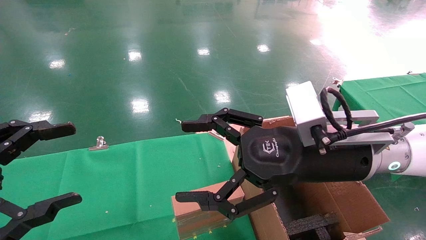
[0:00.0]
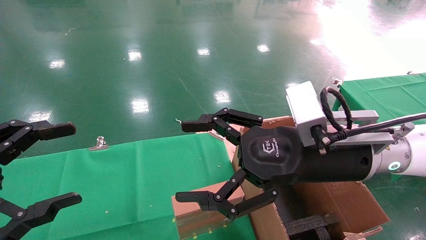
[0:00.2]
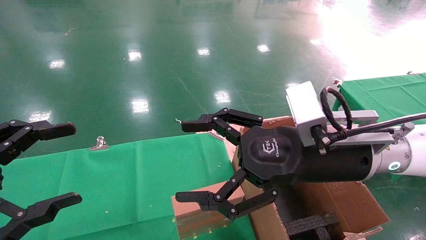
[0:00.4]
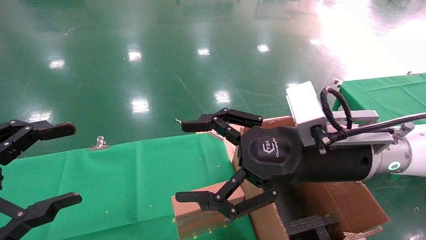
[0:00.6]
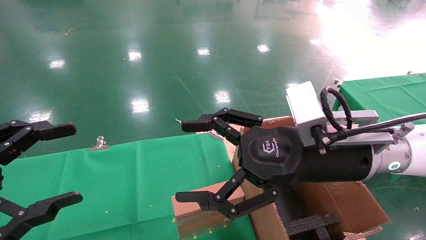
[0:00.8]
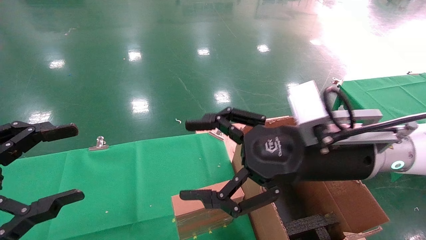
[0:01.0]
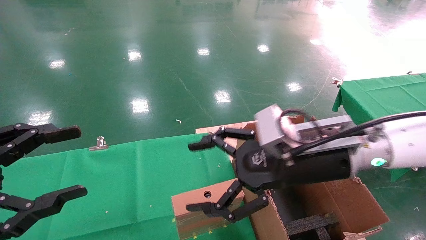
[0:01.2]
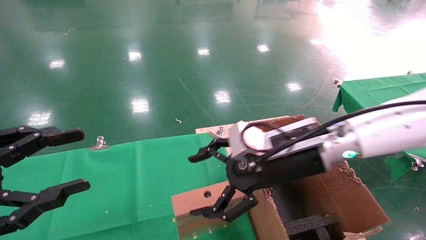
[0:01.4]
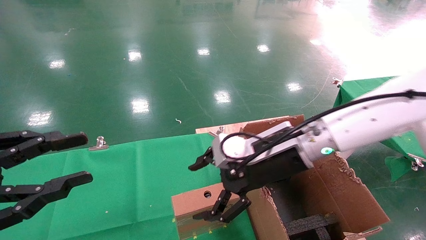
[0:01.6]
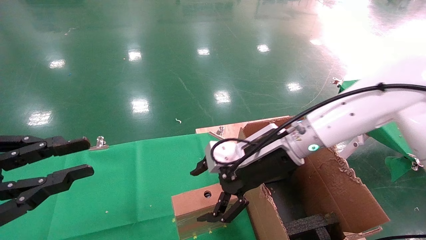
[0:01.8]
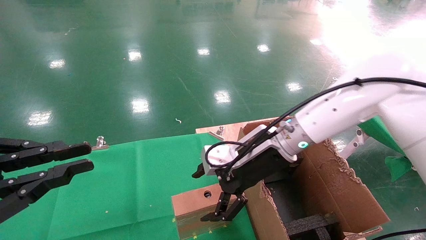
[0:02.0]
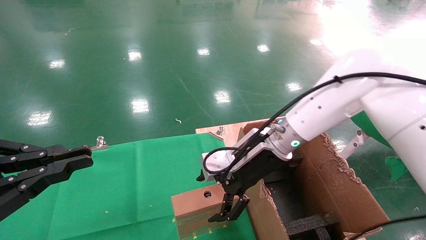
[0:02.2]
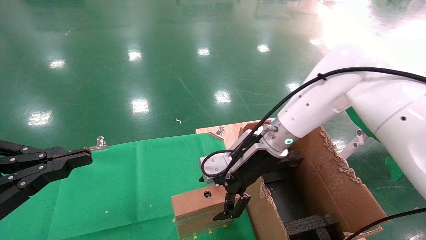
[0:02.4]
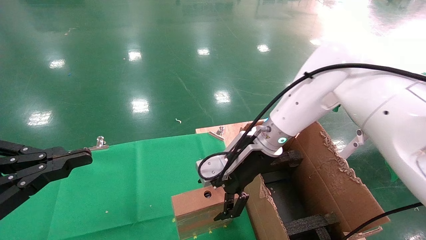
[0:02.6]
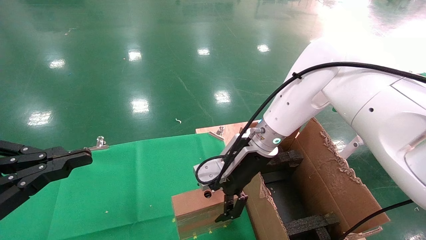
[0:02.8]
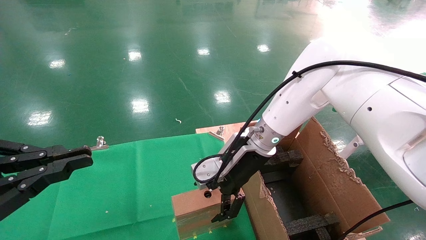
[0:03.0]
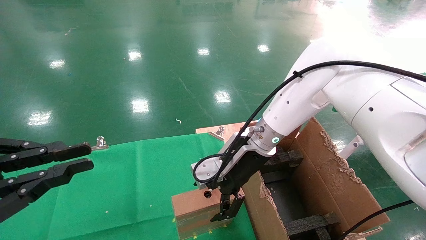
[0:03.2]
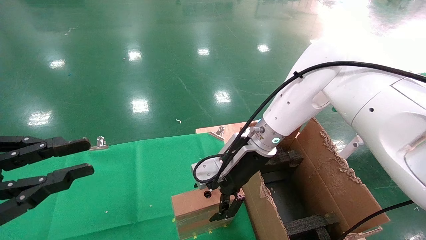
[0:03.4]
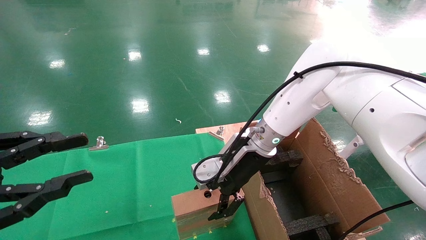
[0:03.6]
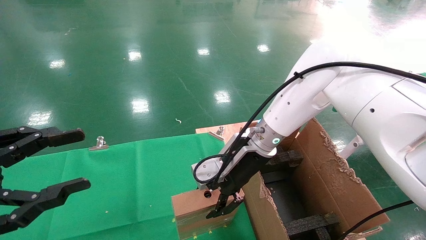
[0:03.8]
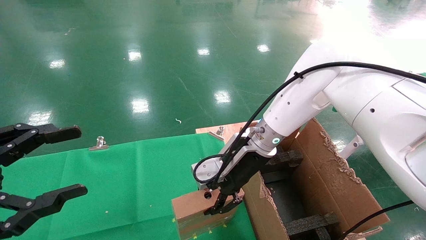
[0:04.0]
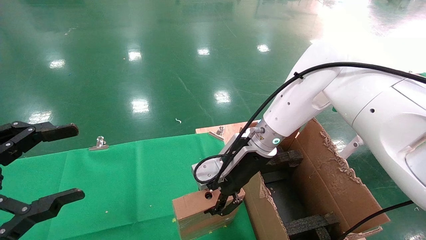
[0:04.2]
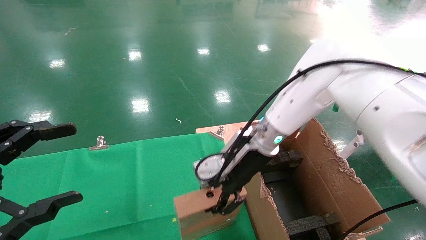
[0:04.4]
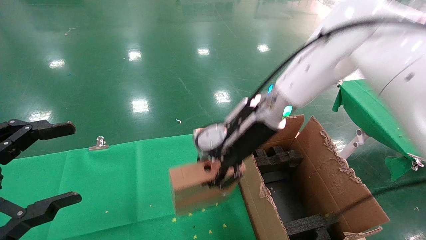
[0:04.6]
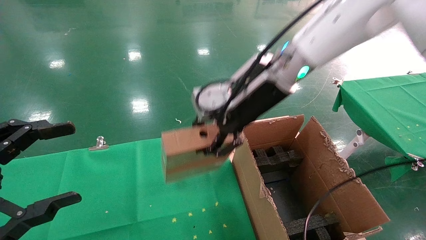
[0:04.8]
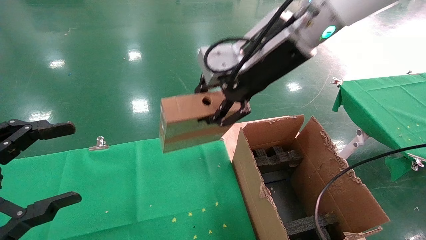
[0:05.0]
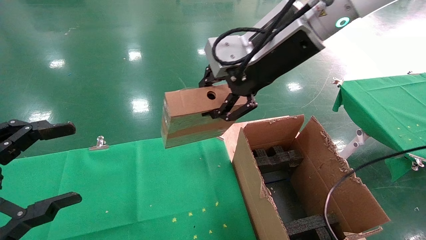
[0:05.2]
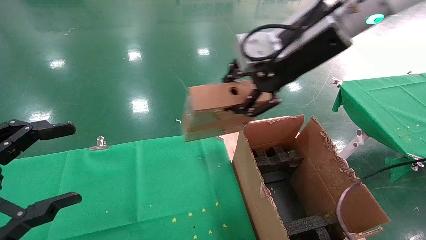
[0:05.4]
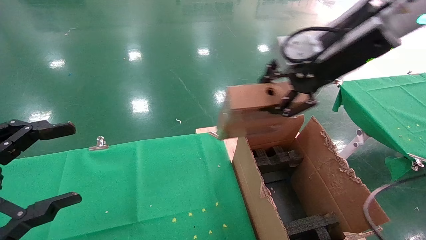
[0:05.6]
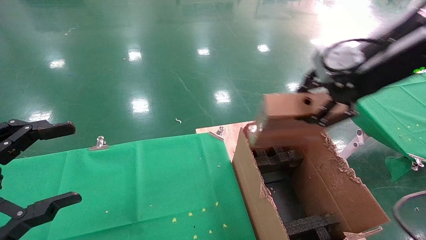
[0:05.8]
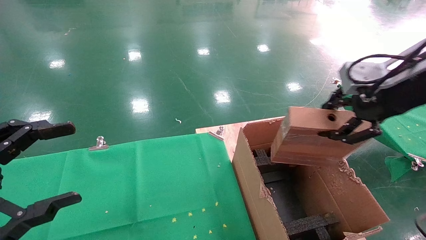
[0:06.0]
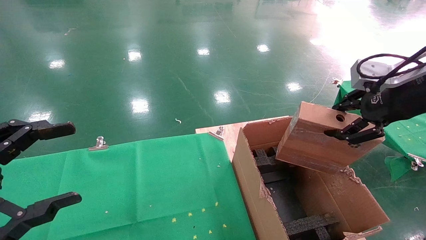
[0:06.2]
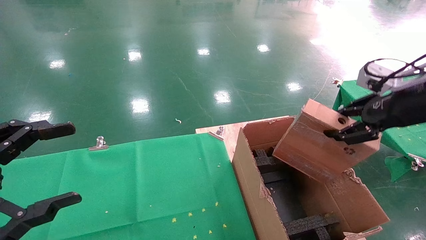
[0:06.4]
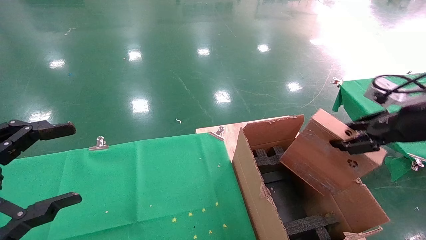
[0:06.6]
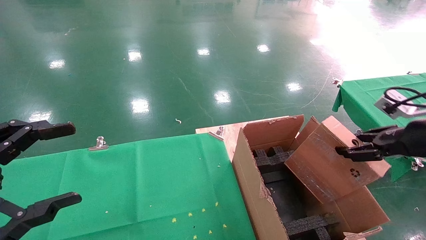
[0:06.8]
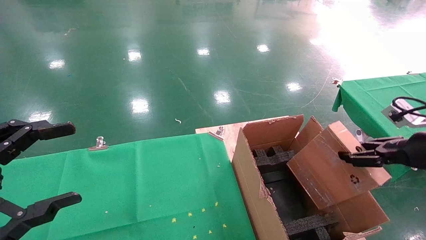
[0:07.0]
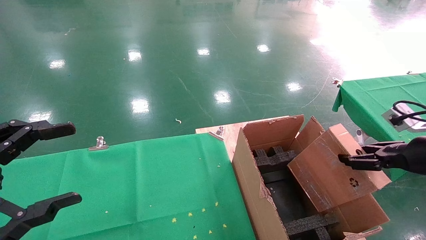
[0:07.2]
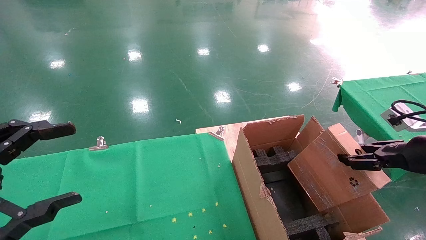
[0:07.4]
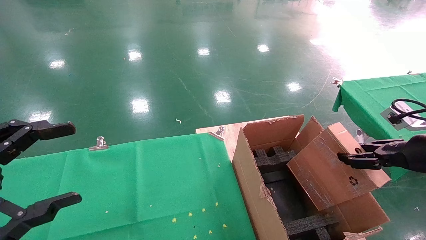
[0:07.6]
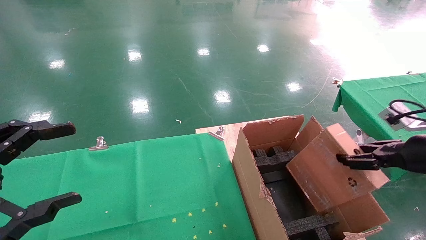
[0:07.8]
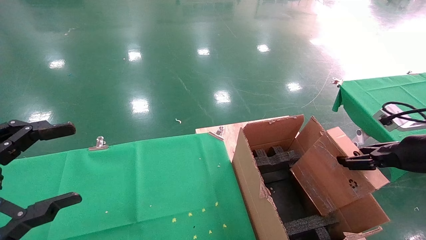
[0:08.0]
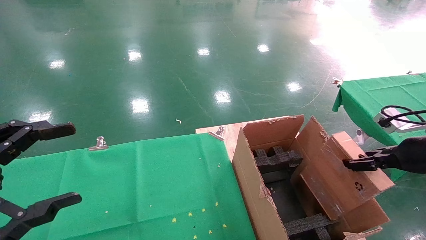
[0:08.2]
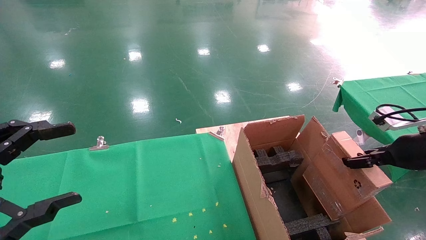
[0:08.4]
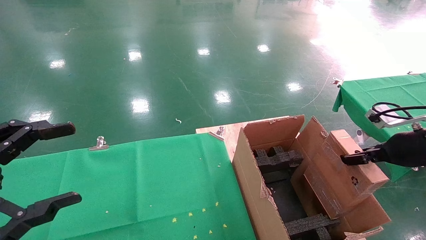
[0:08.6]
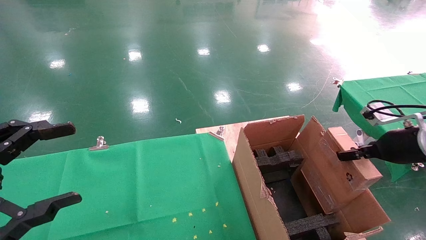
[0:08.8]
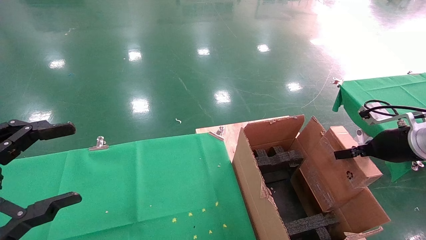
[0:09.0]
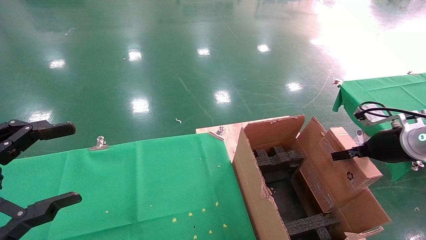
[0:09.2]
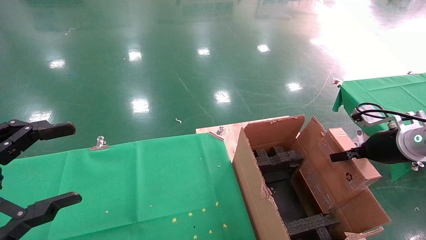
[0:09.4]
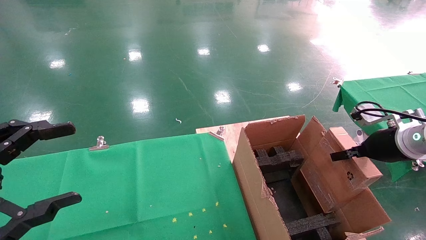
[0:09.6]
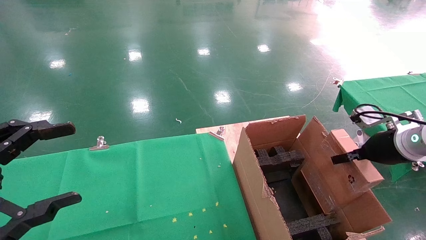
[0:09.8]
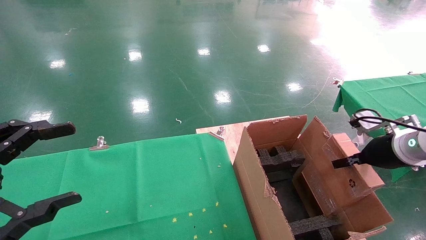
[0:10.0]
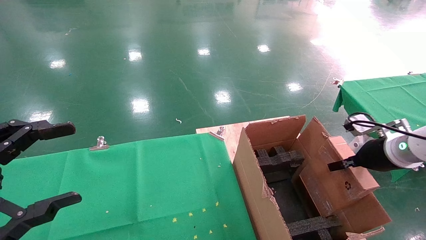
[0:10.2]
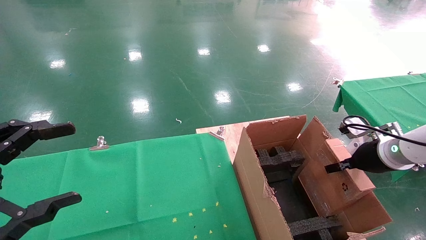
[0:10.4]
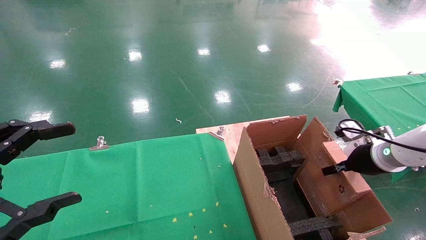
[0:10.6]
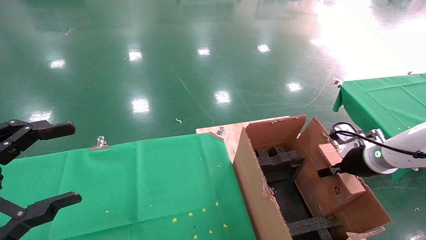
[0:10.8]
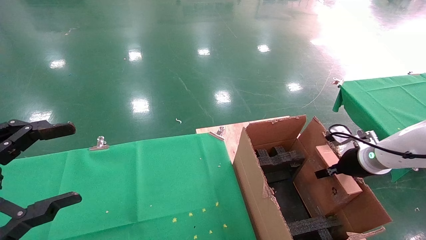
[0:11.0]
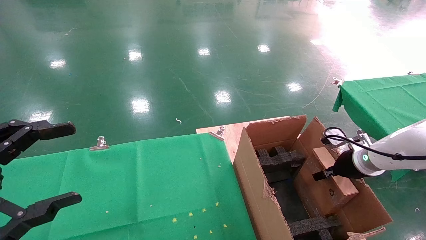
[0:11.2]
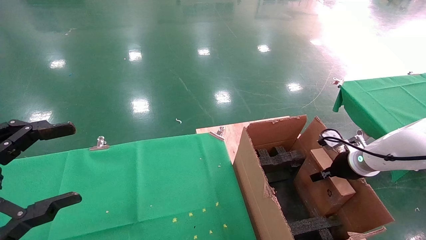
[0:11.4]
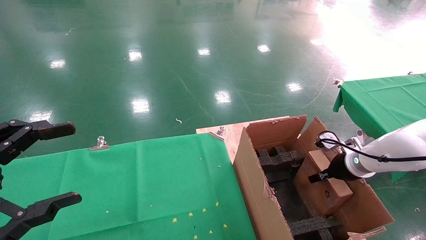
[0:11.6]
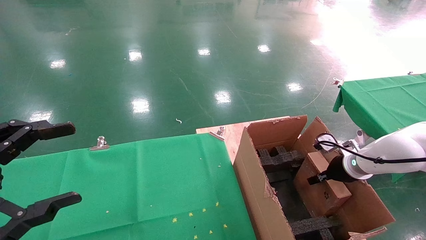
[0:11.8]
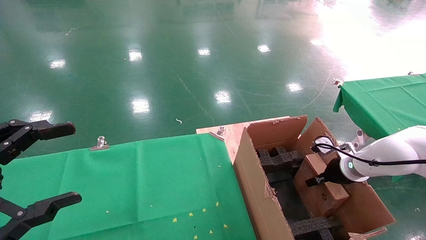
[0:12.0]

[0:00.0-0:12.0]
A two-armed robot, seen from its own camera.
Task of the whole recording: using a robotic arm to pick up a cardboard box and palace it the carton.
Step, 0:01.4 to 0:04.2: Pick up the mouse and the power cord paper box.
0:00.0 to 0:01.6: The right gripper is displaced forward by approximately 10 cm; the left gripper closes.
0:01.6 to 0:03.0: The left gripper closes its fingers; the right gripper heads forward, covering approximately 5 cm.
0:03.0 to 0:04.4: The right gripper closes up. The left gripper opens its fingers.
0:04.4 to 0:06.0: The right gripper shifts some 30 cm to the right, upward and backward.
0:06.0 to 0:07.6: The right gripper is displaced downward and to the right by roughly 20 cm.
0:07.6 to 0:09.0: The right gripper goes some 5 cm forward.
0:09.0 to 0:10.4: The right gripper shifts by approximately 5 cm.
0:10.4 to 0:12.0: The right gripper is displaced downward and forward by about 10 cm.

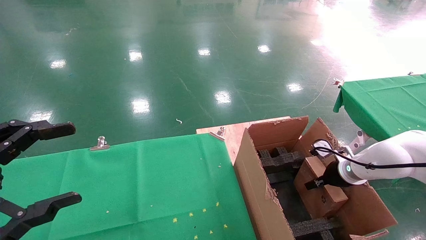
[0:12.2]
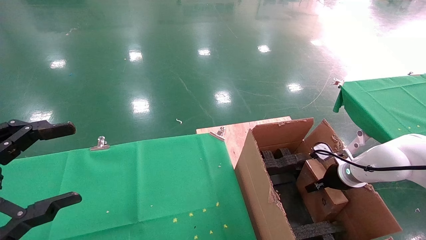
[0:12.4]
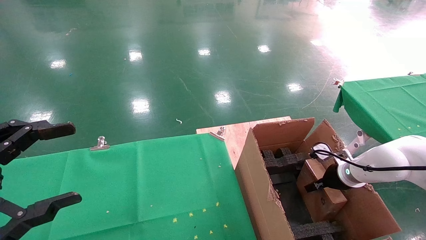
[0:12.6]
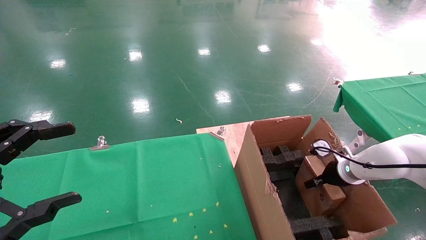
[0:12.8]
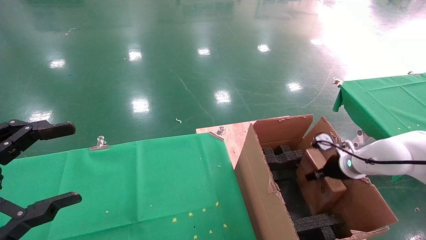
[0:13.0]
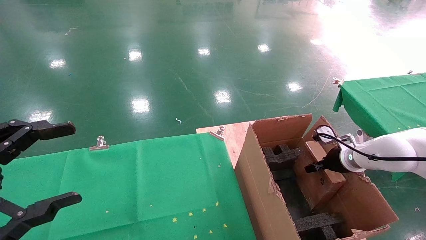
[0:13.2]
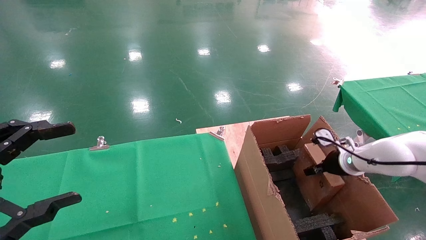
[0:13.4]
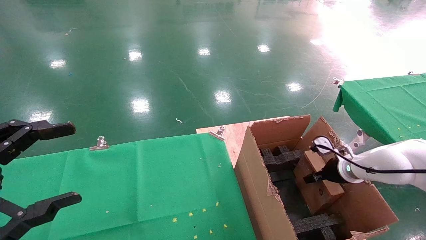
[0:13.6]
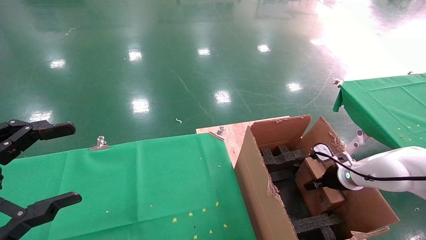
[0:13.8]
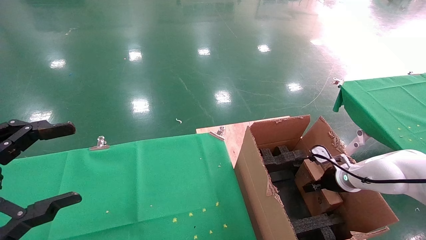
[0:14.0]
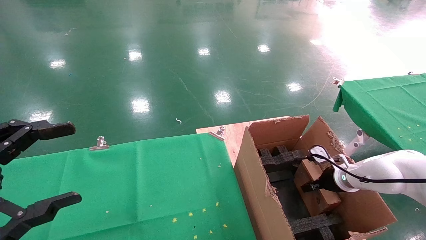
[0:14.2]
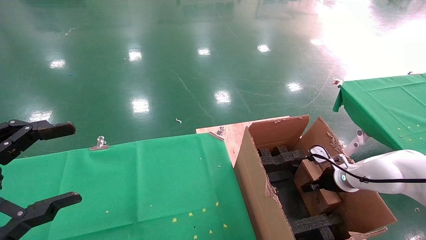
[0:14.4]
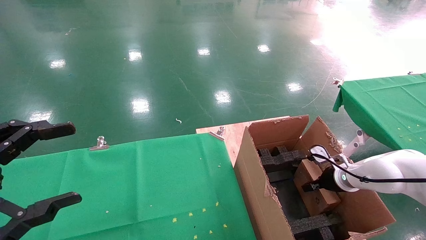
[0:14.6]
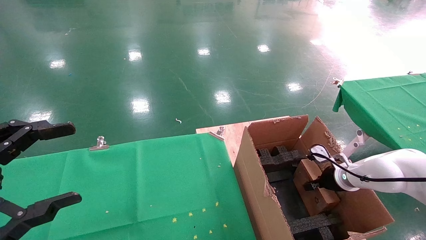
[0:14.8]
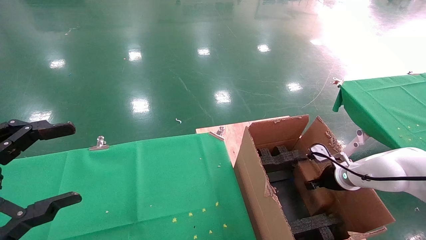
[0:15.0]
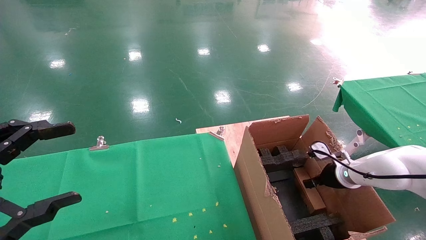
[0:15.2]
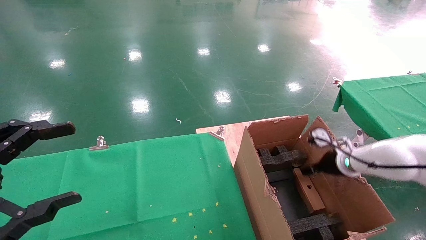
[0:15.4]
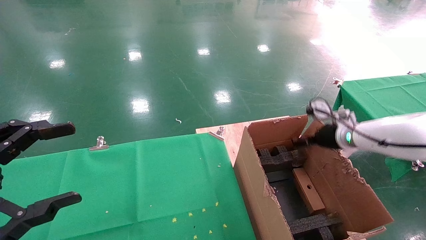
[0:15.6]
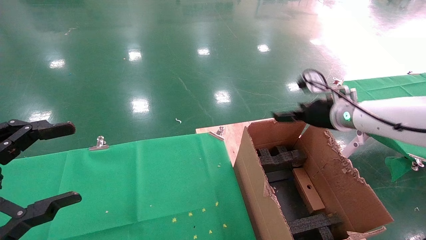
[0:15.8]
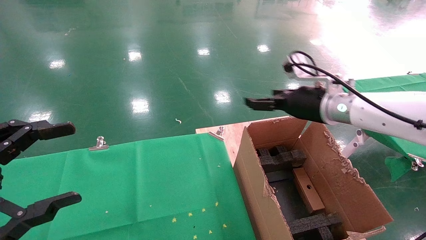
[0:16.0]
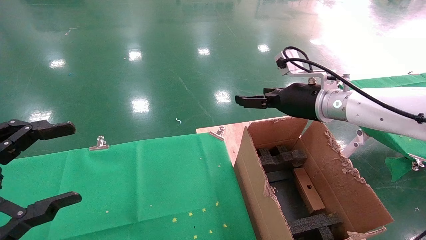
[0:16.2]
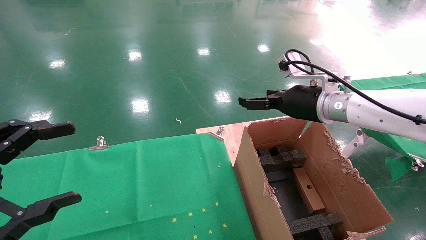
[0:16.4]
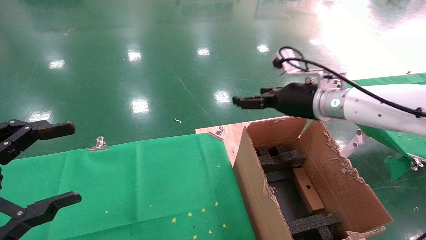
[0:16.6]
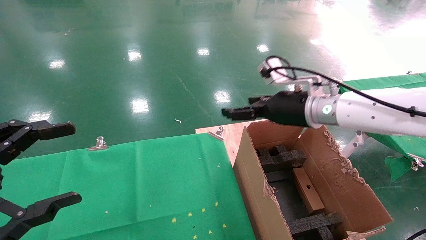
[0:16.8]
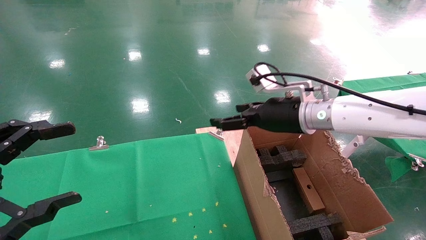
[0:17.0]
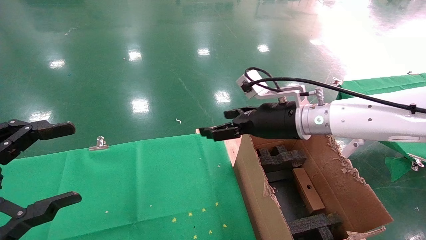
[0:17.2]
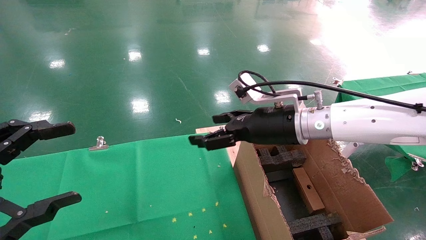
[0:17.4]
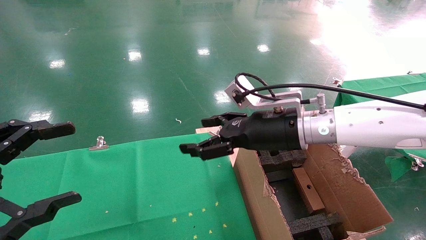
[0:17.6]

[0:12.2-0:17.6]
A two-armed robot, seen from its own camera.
Task of the whole recording: using a robotic arm to pick up a cardboard box and palace it the carton.
Step, 0:12.2 to 0:15.8: Place the mouse and the power cord paper box into the container.
0:12.2 to 0:13.6: The grippers make only small movements.
0:13.6 to 0:15.0: The right gripper opens its fingers.
0:15.0 to 0:16.2: The right gripper travels upward and to the left by about 25 cm, and opens up.
0:16.2 to 0:17.6: The right gripper moves to the left, roughly 10 cm.
